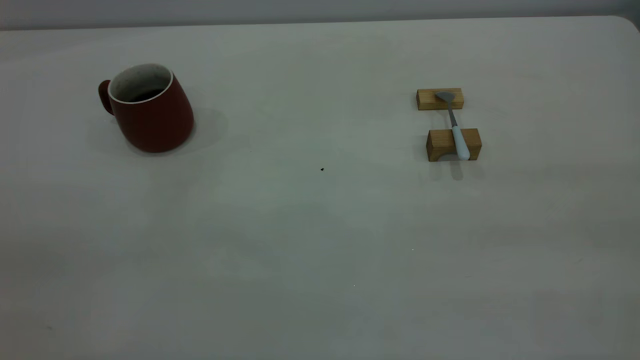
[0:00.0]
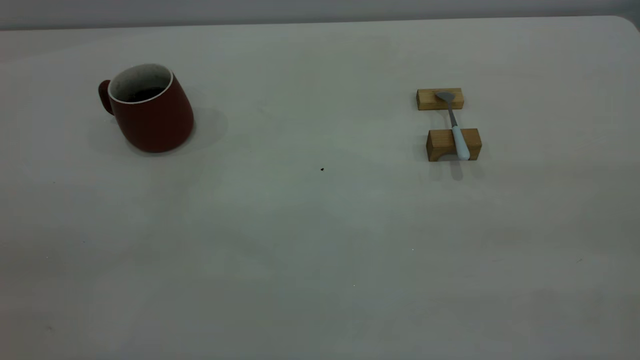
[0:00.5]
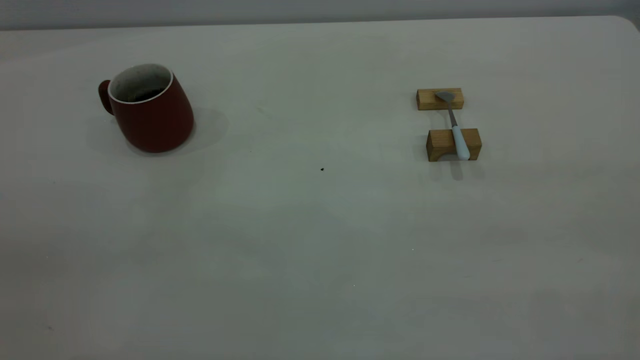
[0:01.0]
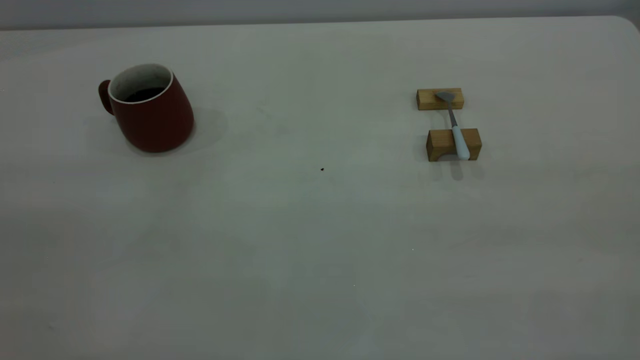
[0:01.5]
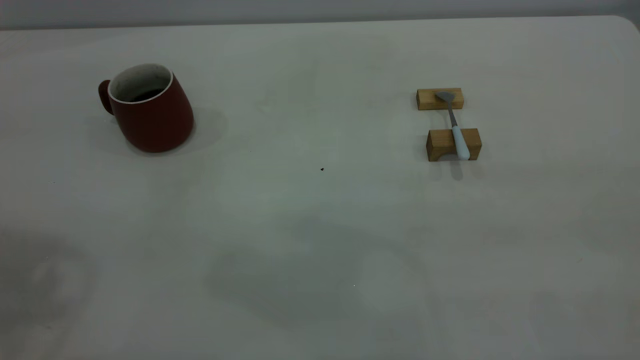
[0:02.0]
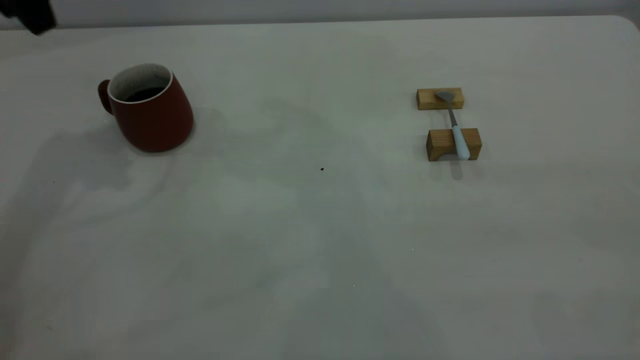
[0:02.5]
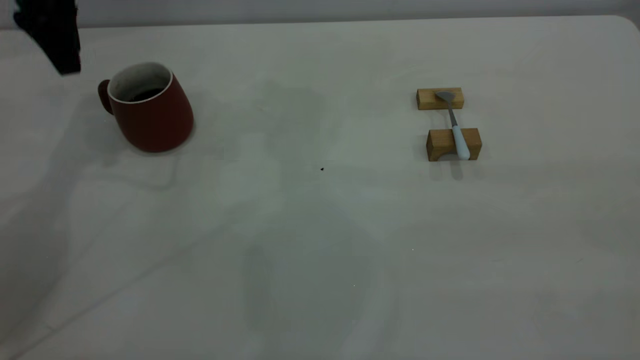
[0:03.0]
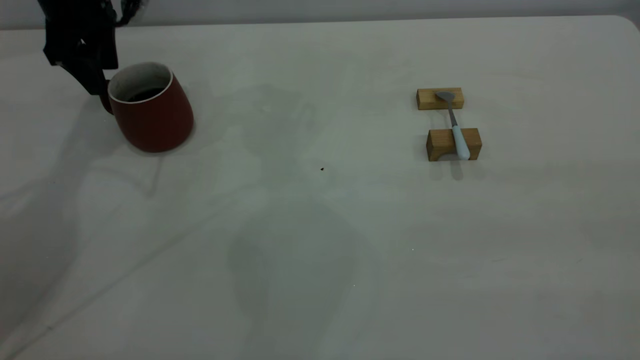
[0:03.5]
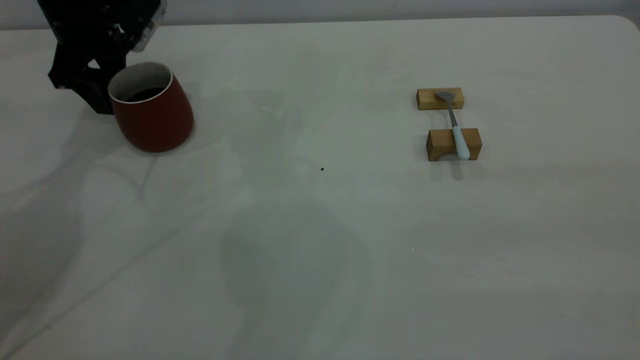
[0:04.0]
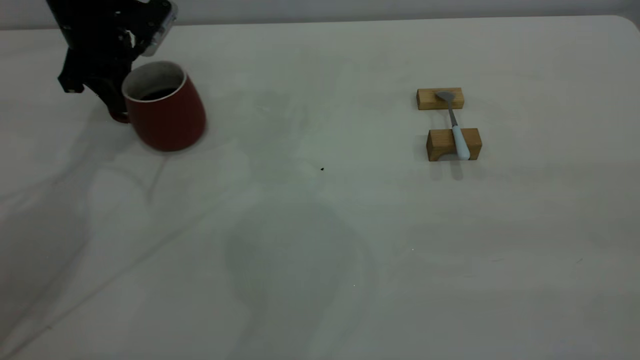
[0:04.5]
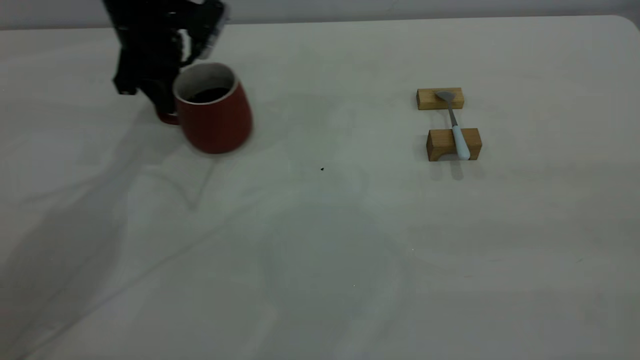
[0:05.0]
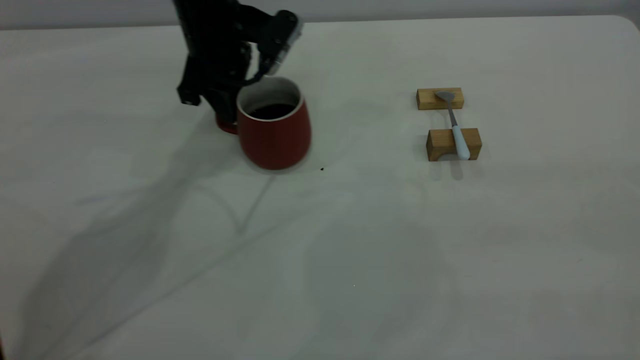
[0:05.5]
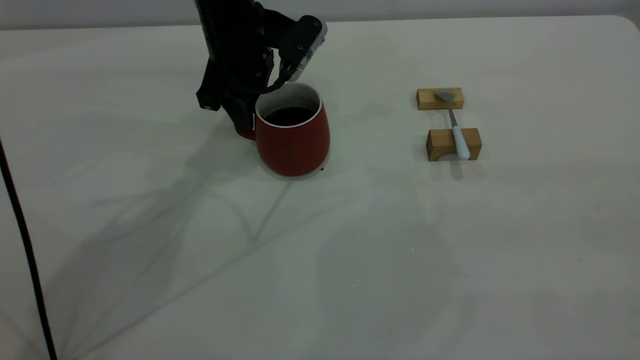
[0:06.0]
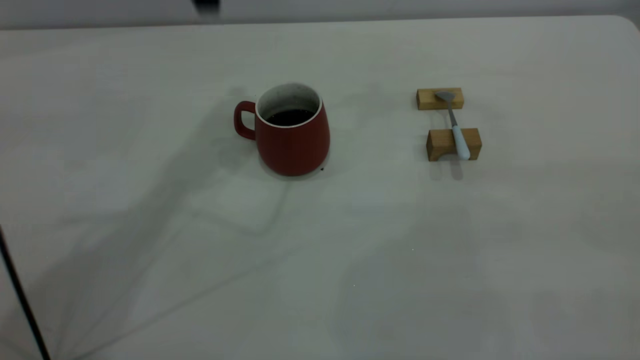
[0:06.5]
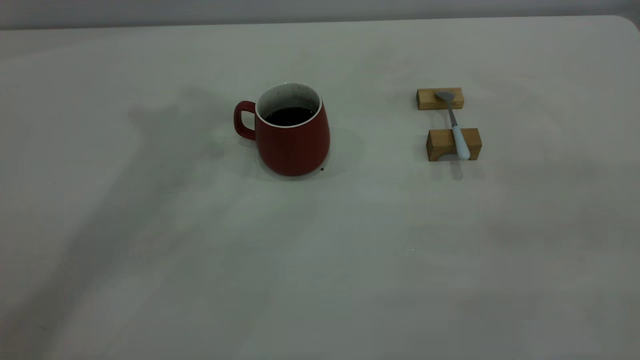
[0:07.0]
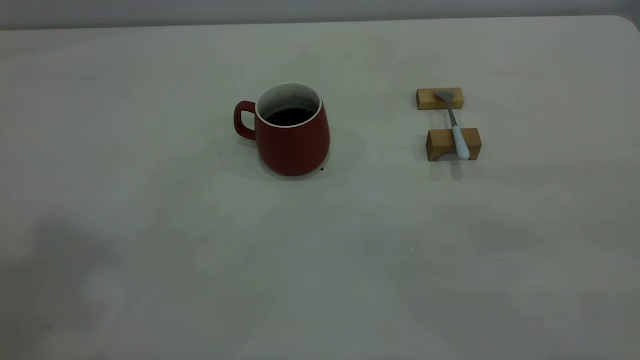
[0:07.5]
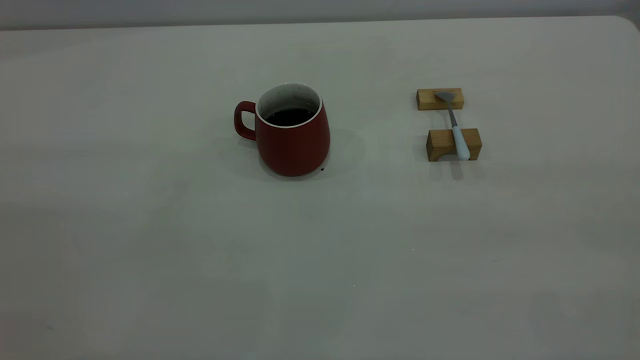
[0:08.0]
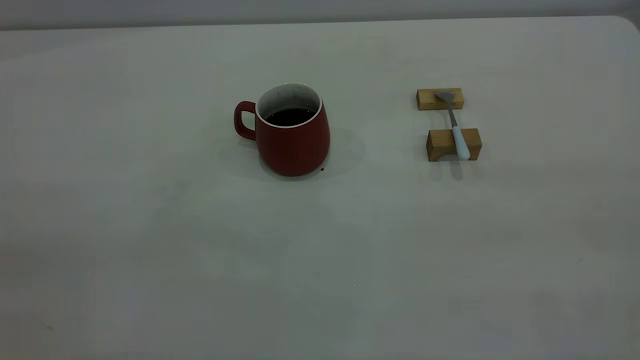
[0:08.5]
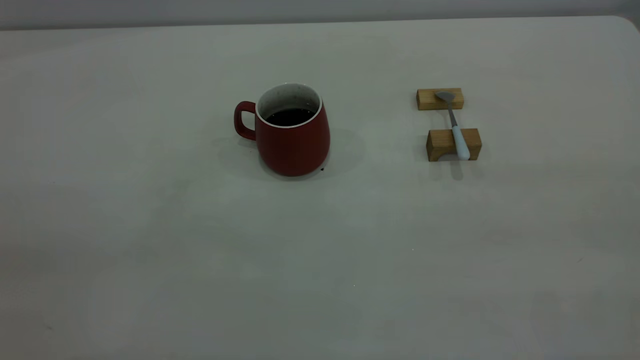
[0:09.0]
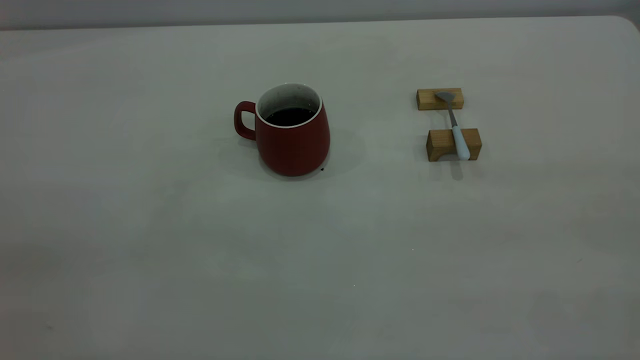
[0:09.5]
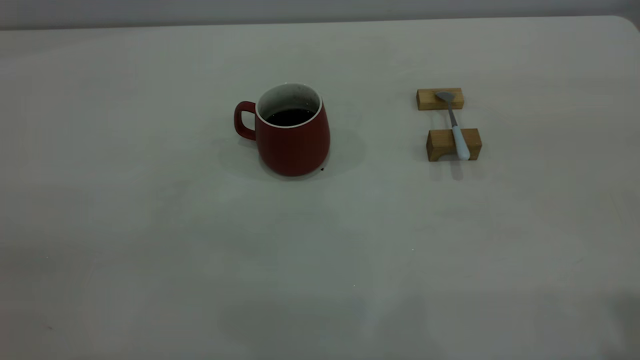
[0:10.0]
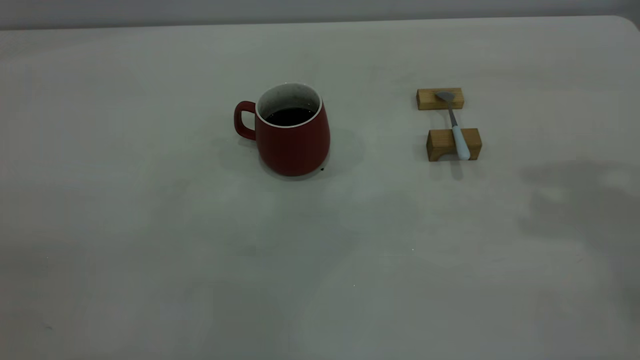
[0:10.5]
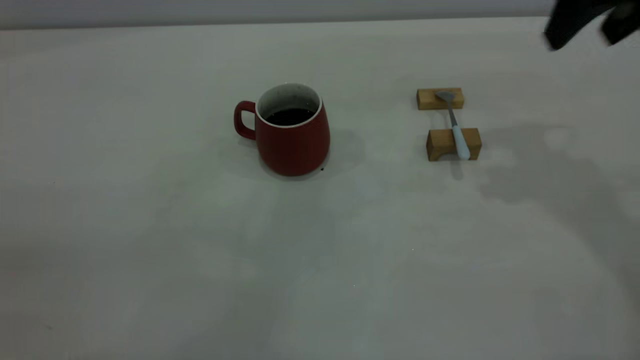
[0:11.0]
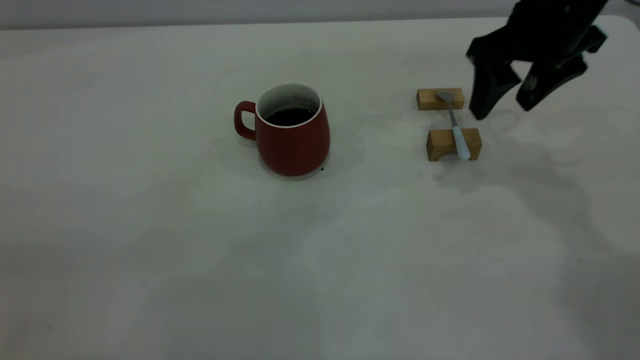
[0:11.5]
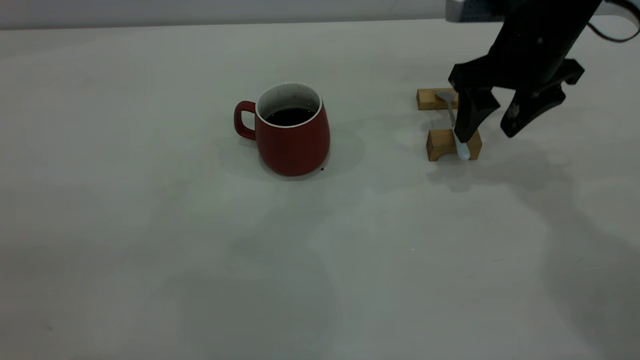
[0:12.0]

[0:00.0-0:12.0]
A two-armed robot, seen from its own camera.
Step, 0:00.0 to 0:06.0: Move the cup with coffee to the center of view.
0:02.0 to 0:04.0: The left gripper shifts some 40 cm forward and downward.
0:04.0 to 0:06.0: The left gripper is displaced to the right by about 20 cm, and closes and opens again.
0:06.0 to 0:08.0: The left gripper goes approximately 50 cm backward, upward and to the left, and closes its fingers.
0:10.0 to 0:12.0: The right gripper moves forward and downward, about 35 cm.

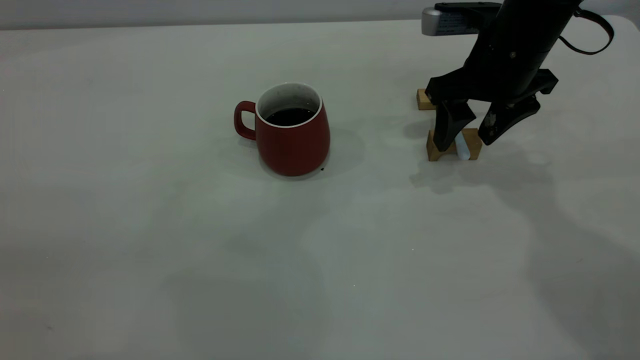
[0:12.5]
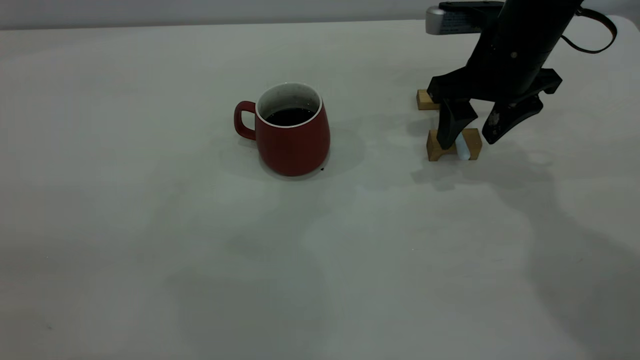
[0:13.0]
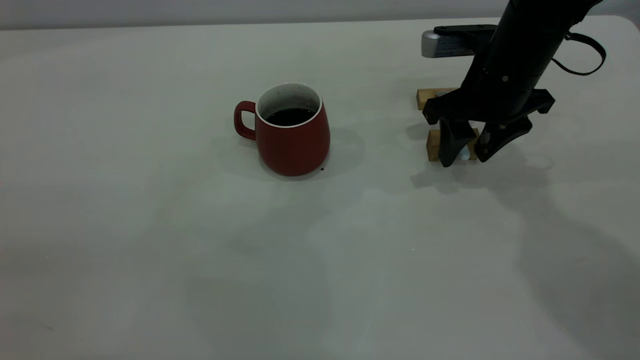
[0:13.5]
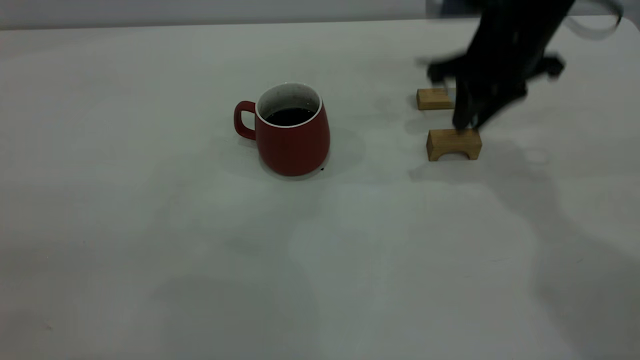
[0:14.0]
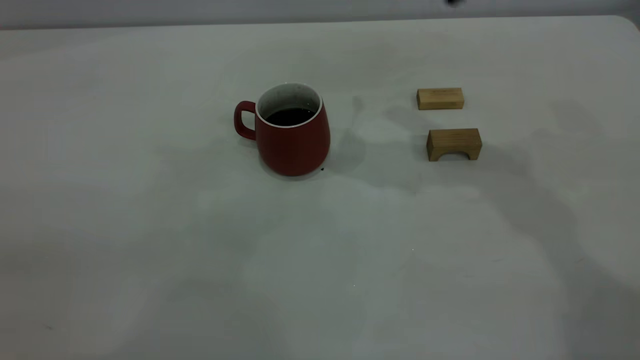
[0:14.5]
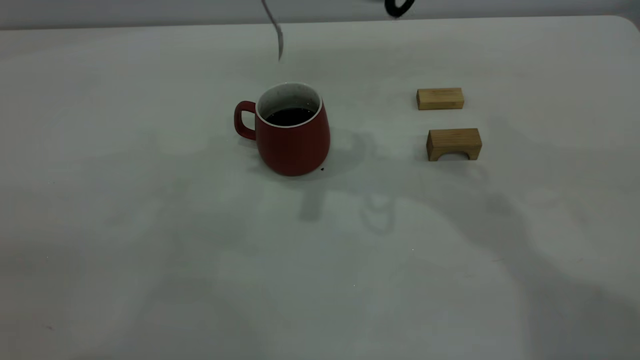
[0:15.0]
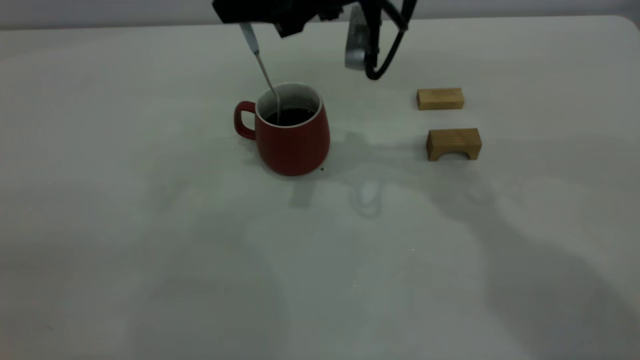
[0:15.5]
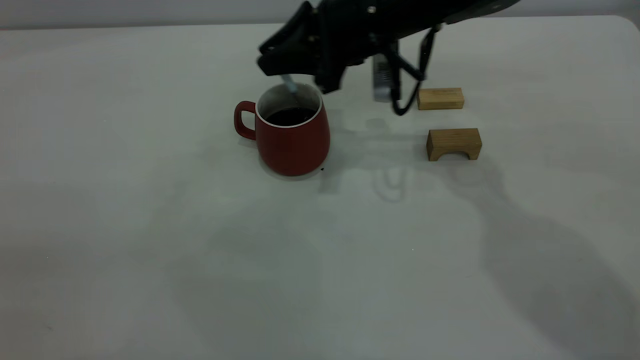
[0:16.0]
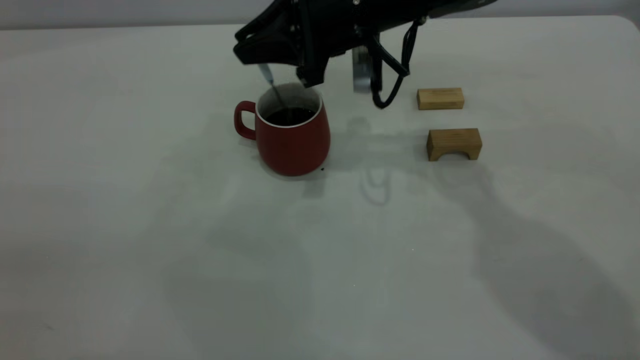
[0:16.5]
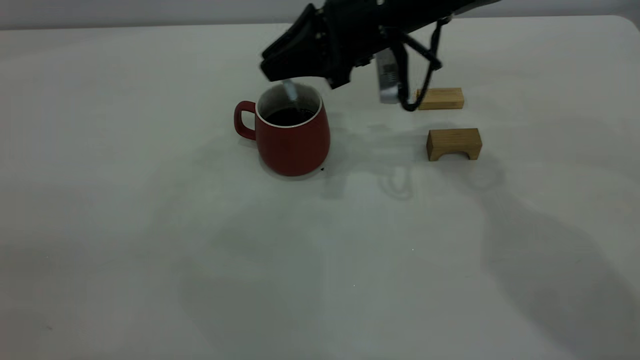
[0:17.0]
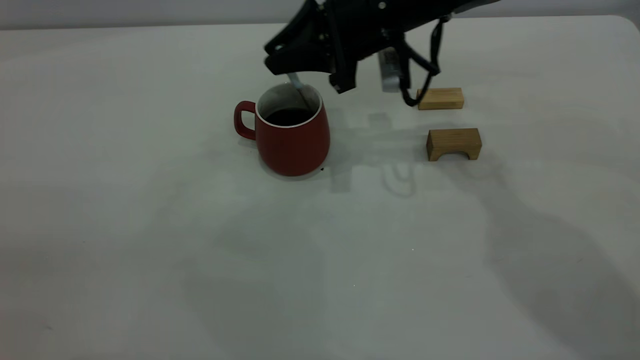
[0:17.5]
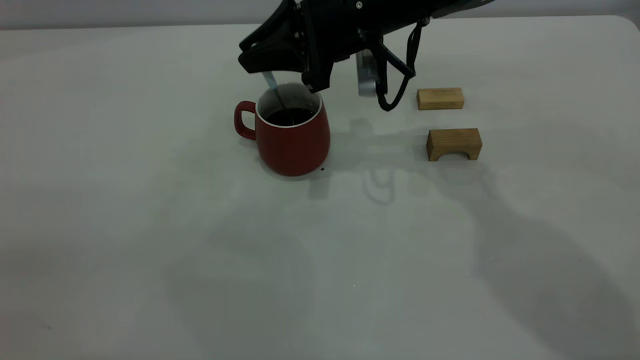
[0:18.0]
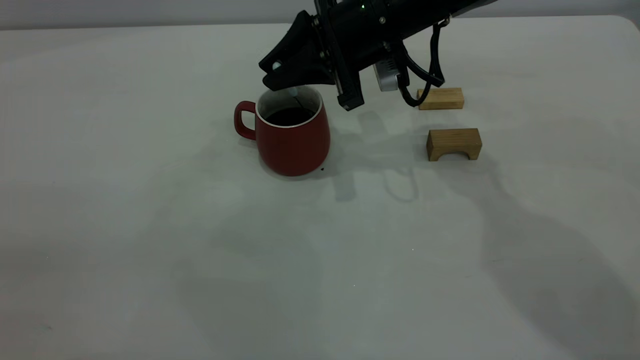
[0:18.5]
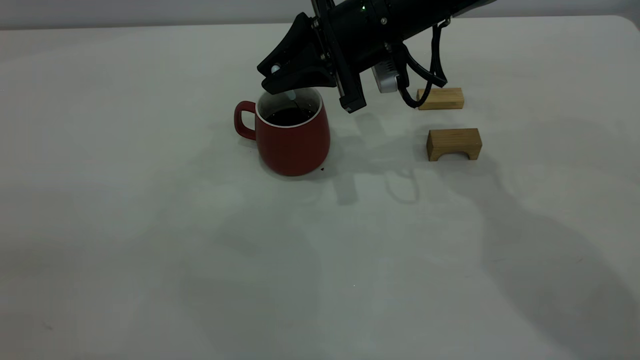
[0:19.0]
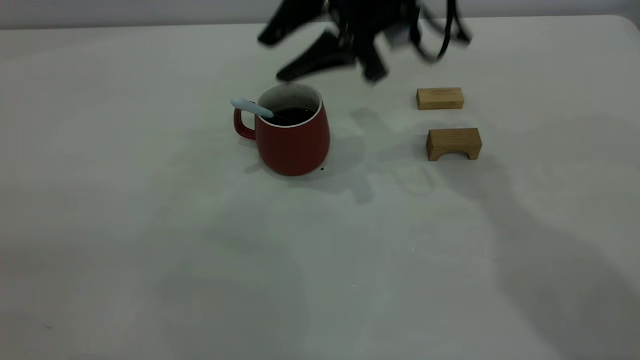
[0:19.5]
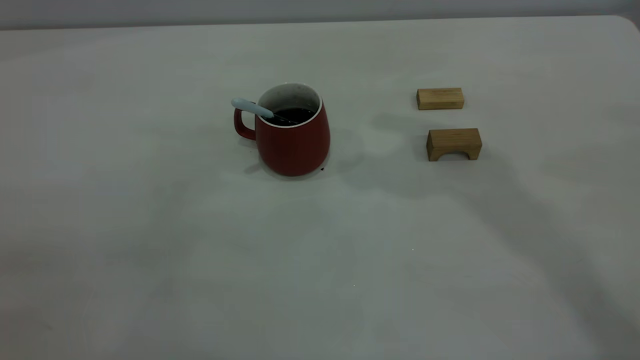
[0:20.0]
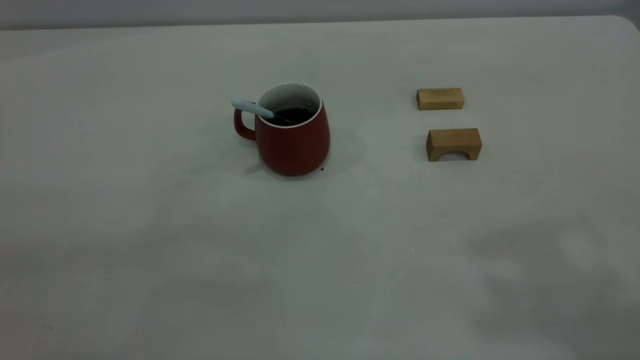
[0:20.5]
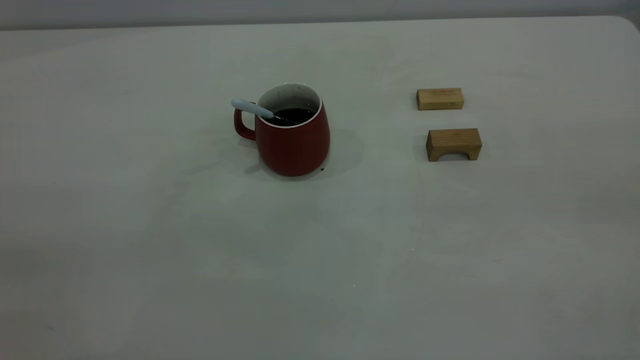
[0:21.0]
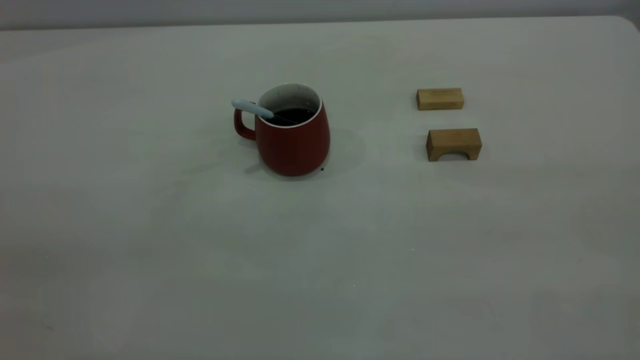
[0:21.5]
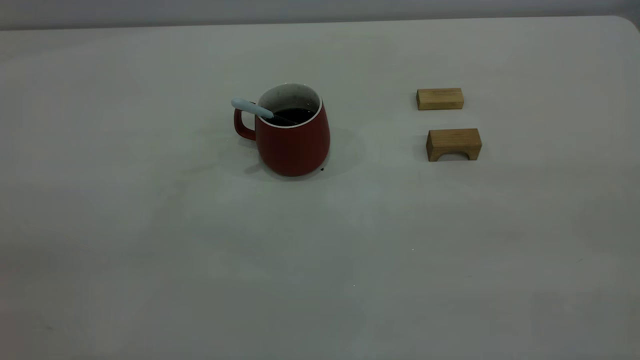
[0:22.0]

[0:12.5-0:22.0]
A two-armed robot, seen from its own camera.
Step, 0:14.5 to 0:19.0: Stir the coffee in the cup.
0:12.5 to 0:14.5: The right gripper travels upward and to the left by approximately 15 cm, and closes up.
0:14.5 to 0:16.5: The right gripper travels downward and to the left by about 15 cm.
0:16.5 to 0:18.0: The grippers move only a little.
0:18.0 to 0:20.0: The right gripper moves upward, roughly 25 cm, and opens its fingers.
